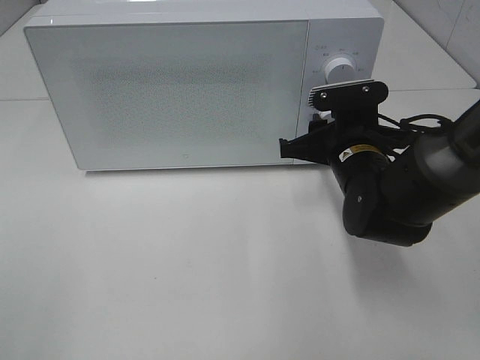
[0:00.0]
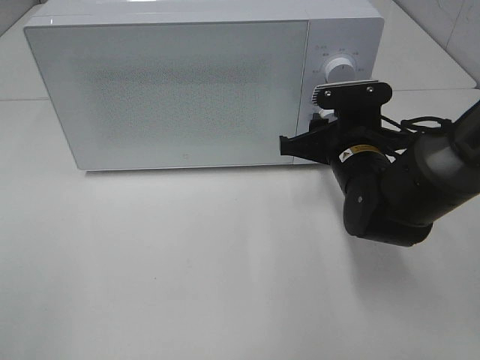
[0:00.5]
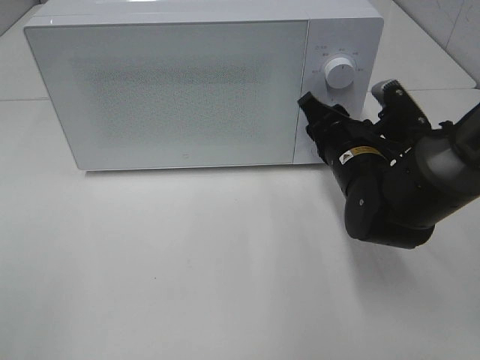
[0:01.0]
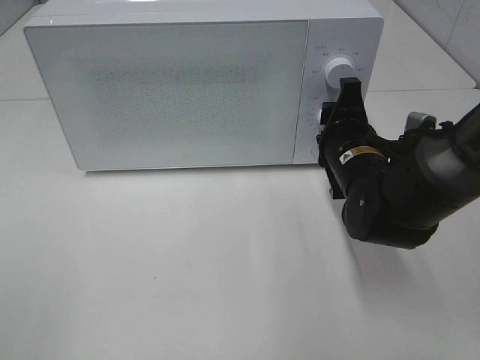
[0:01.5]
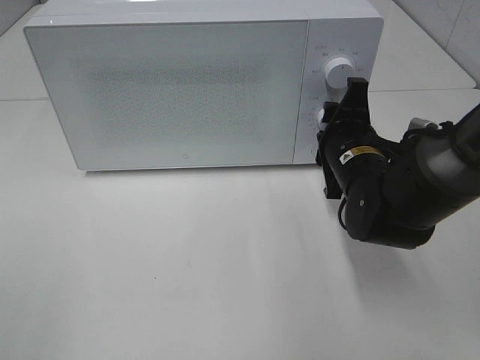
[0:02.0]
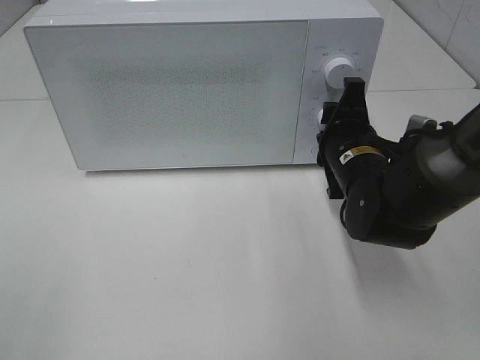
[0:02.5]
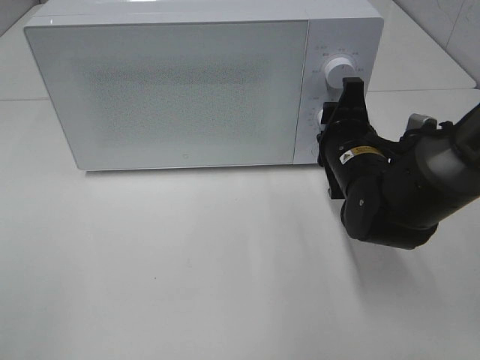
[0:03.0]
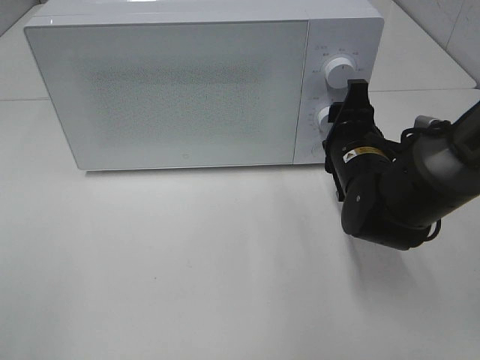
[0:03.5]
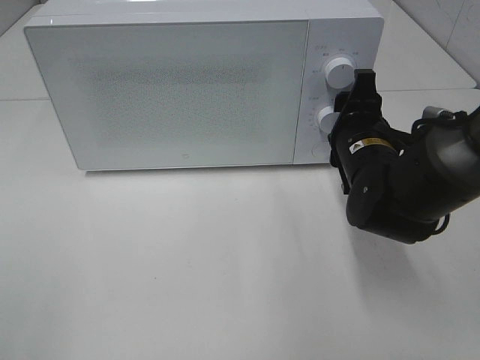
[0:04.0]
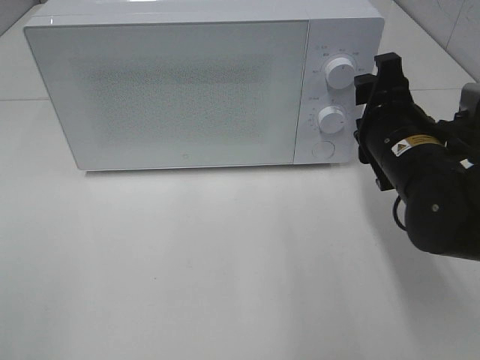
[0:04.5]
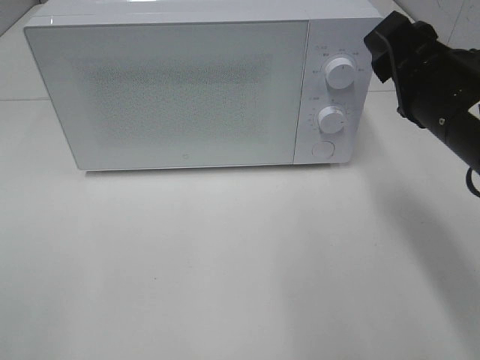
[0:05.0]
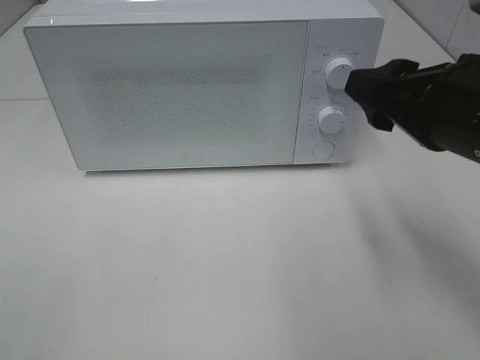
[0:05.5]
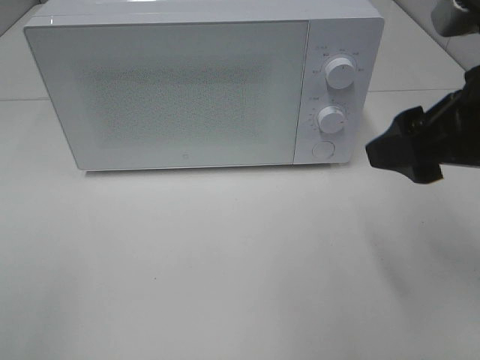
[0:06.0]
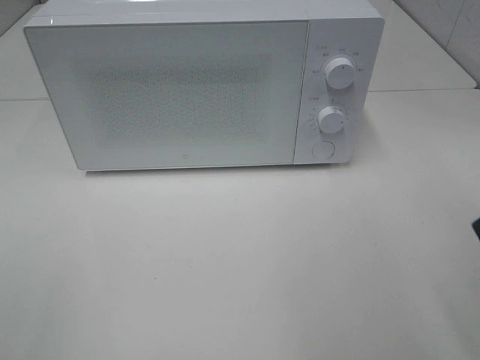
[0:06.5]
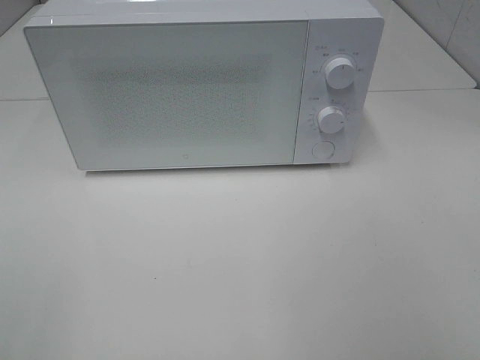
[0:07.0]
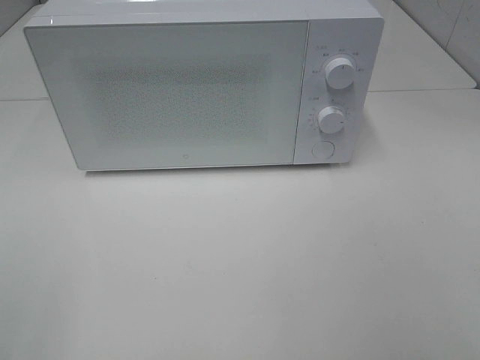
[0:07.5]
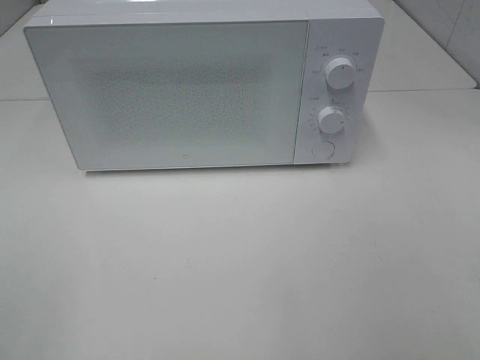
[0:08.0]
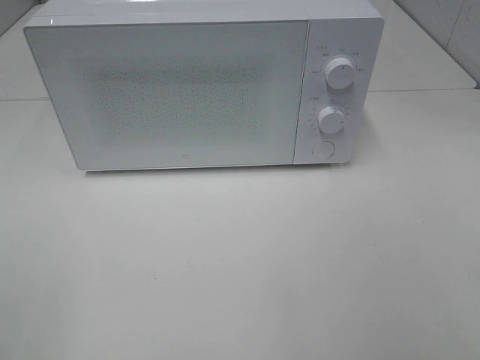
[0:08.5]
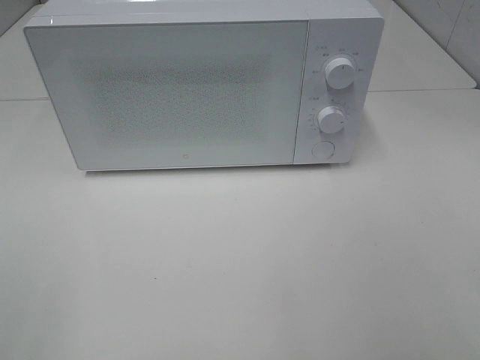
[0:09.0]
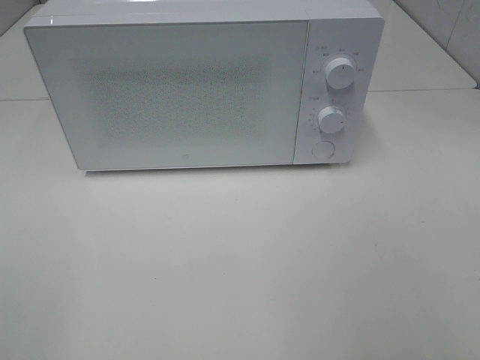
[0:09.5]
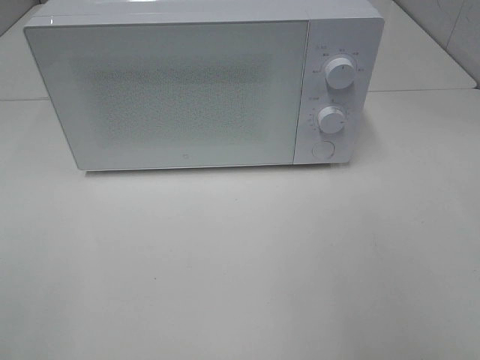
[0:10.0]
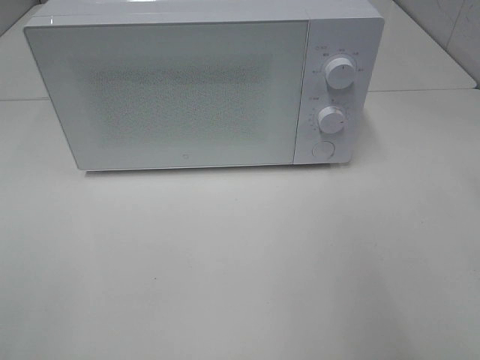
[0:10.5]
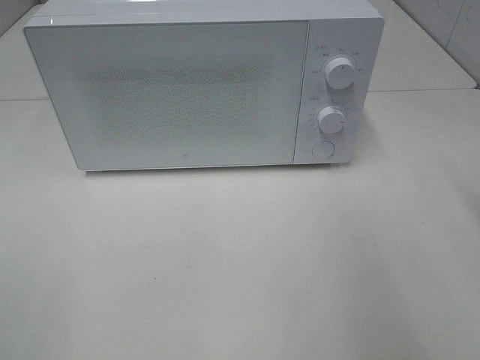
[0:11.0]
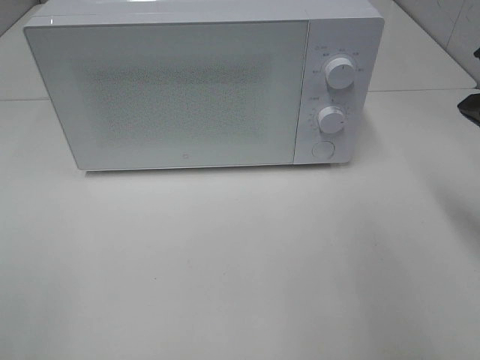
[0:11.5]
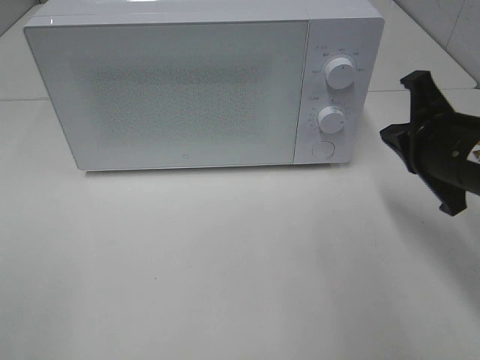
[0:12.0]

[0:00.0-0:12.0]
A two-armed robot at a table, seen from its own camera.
Task of the whole recording: Heat the burger.
Step, 0:00.0 to 0:03.5: Right hand: twist timer button.
0:02.0 to 0:04.0: The grippers make only small movements.
0:04.0 to 0:06.0: The right gripper is displaced upward and backward by roughly 20 cm.
0:06.0 to 0:08.0: The right gripper heads backward and to the right, covering roughly 20 cm.
0:10.0 to 0:12.0: The right gripper is displaced forward, downward and to the left by roughly 25 cm, and closes.

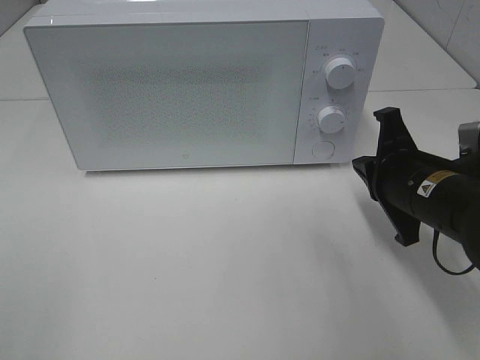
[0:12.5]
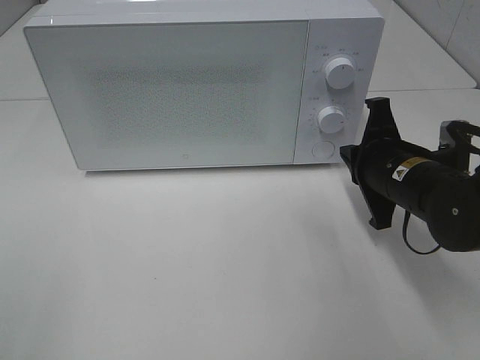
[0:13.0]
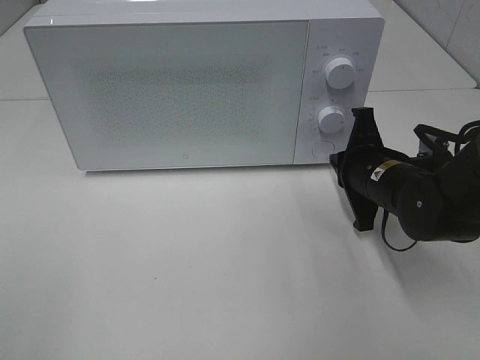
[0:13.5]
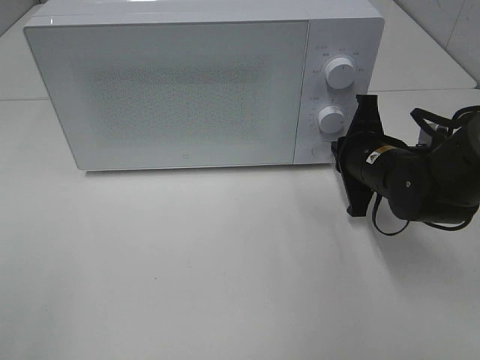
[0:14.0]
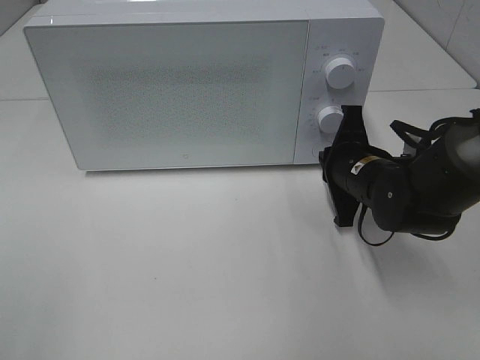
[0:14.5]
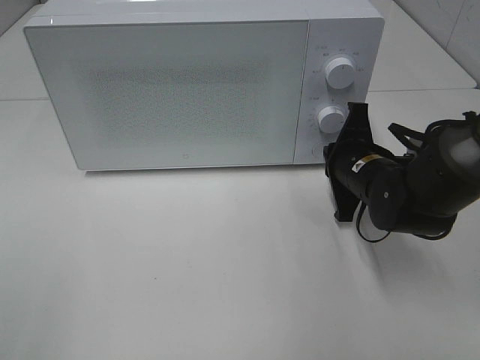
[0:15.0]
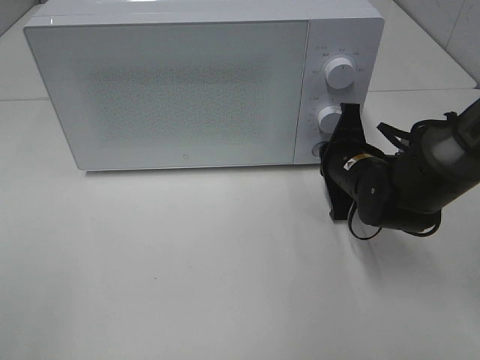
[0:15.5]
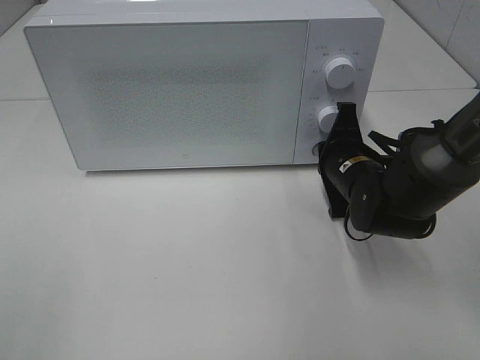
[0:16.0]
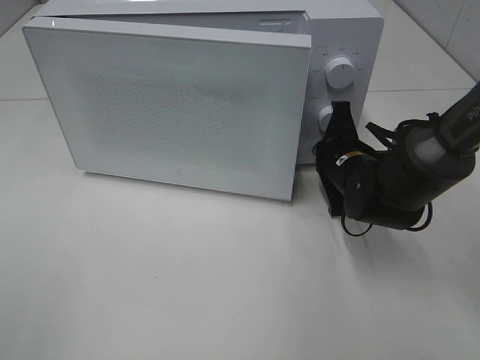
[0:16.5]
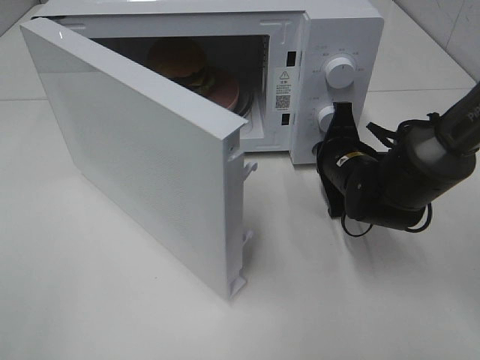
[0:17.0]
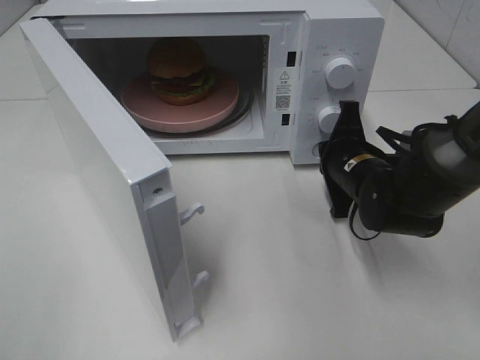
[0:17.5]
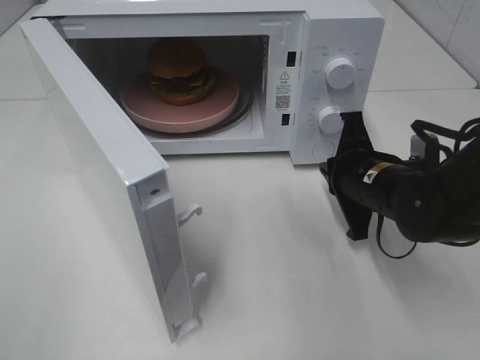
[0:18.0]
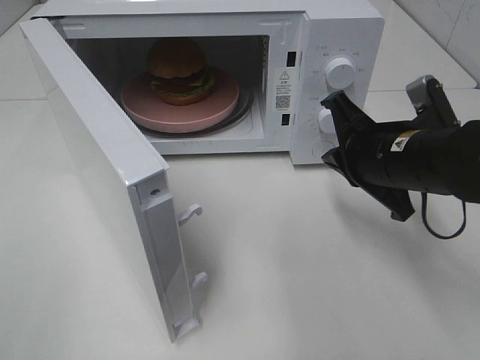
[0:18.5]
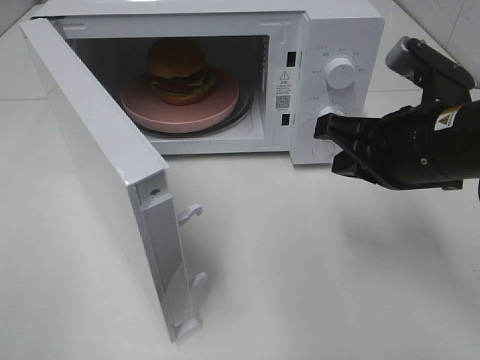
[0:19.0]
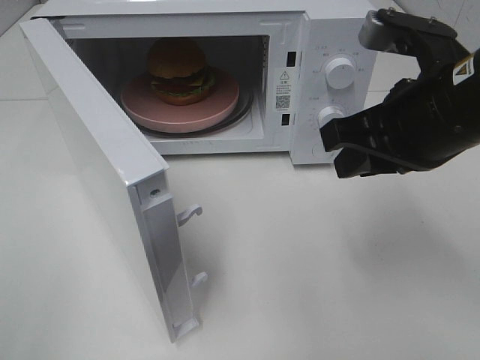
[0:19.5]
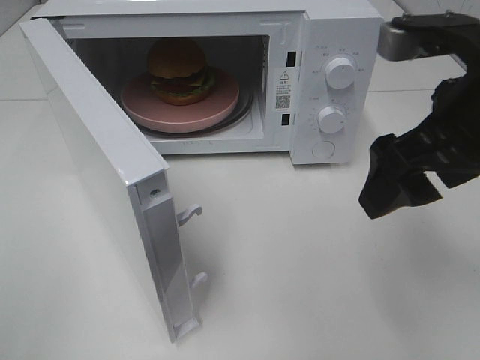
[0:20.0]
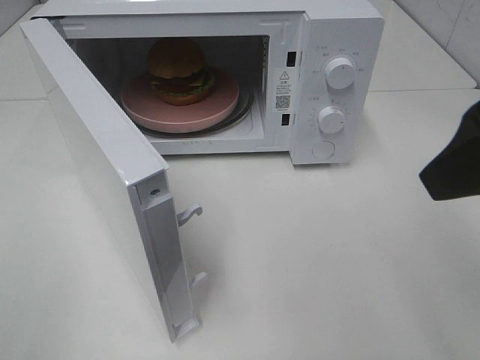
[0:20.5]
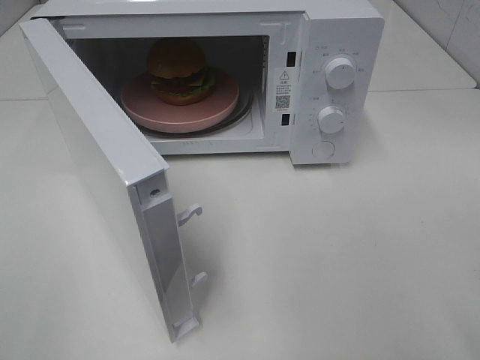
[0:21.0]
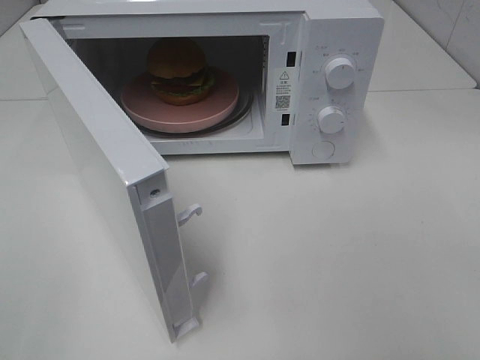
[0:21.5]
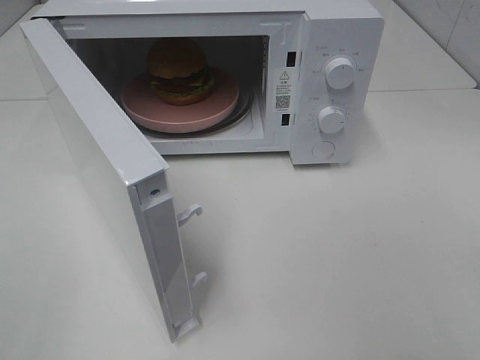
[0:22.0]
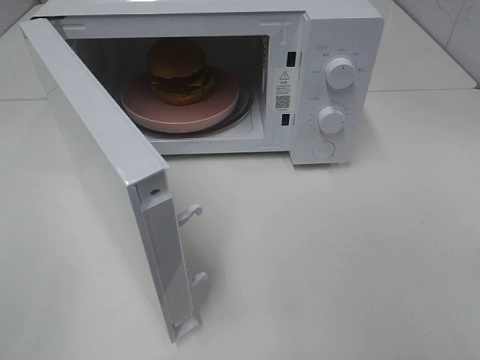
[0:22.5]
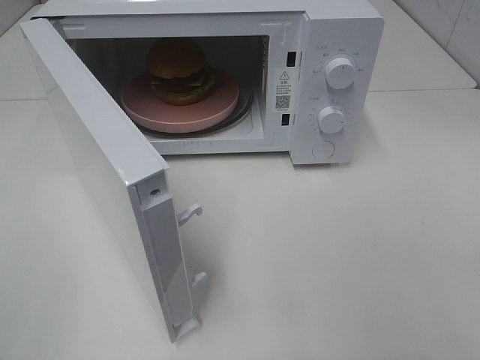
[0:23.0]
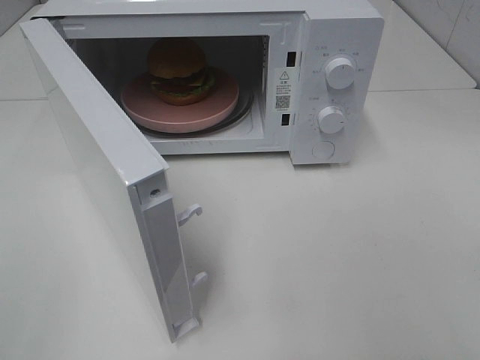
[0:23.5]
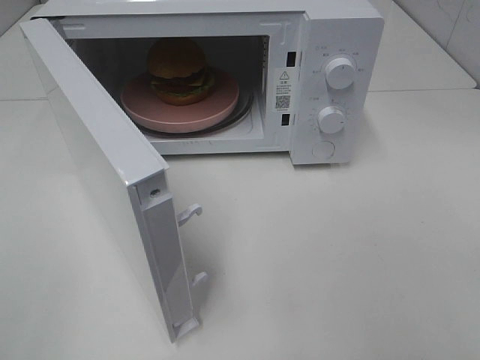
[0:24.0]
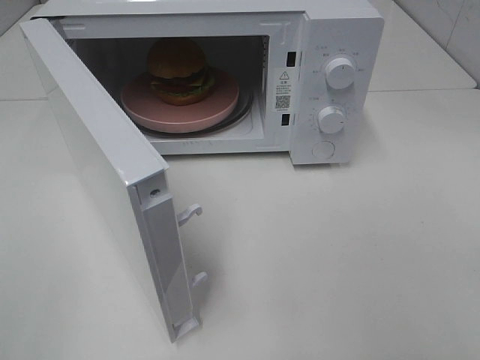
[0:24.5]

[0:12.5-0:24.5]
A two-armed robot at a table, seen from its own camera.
Task of the whole recording: Heat the burger.
Step, 0:12.5 to 0:17.5: Right hand: press the switch.
0:12.5 to 0:14.5: The right gripper travels forward by roughly 5 cm.
0:14.5 to 0:16.5: There are only small adjustments of the grippers.
0:16.5 to 0:18.5: The right gripper is displaced upward and backward by roughly 10 cm.
0:18.5 to 0:20.5: The right gripper travels upward and backward by about 20 cm, and opens up.
0:20.5 to 0:22.5: The right gripper moves backward and to the right, some 15 cm.
0:22.5 to 0:24.5: Both grippers stay put.

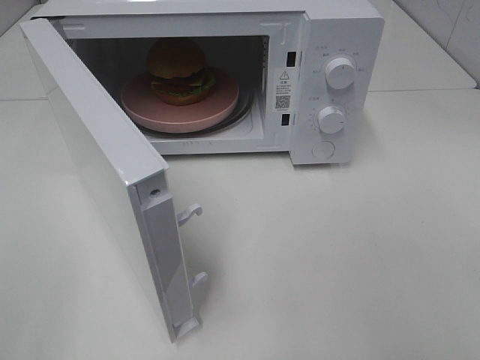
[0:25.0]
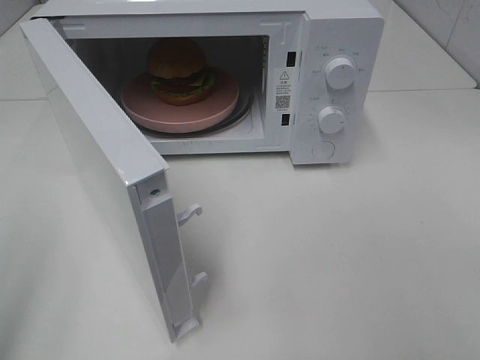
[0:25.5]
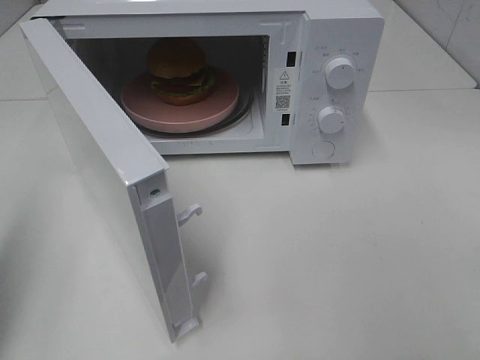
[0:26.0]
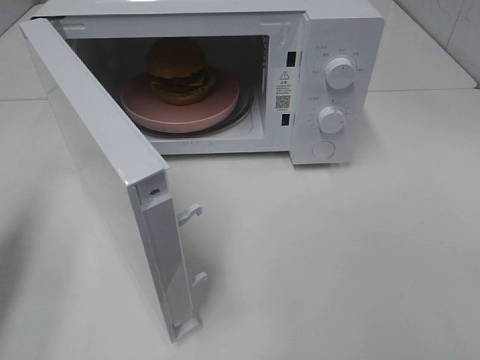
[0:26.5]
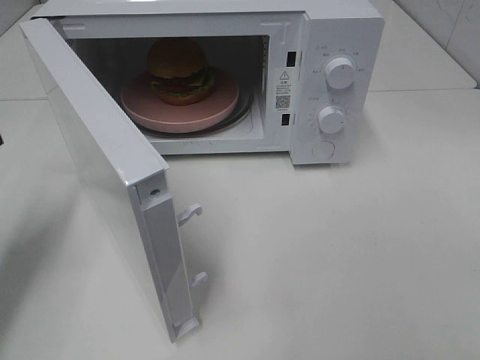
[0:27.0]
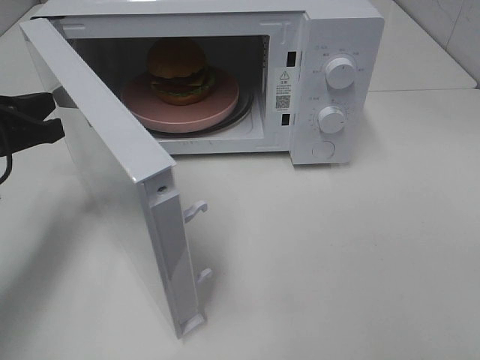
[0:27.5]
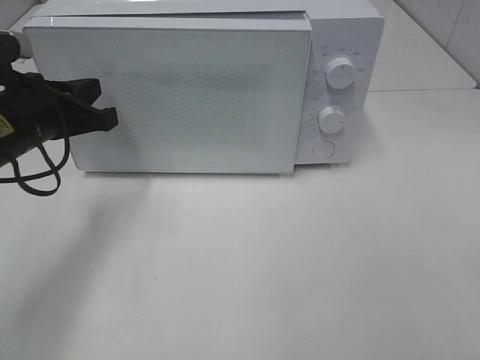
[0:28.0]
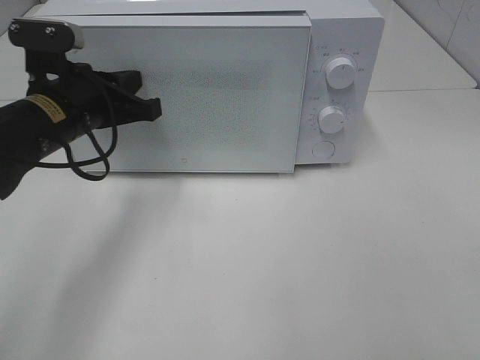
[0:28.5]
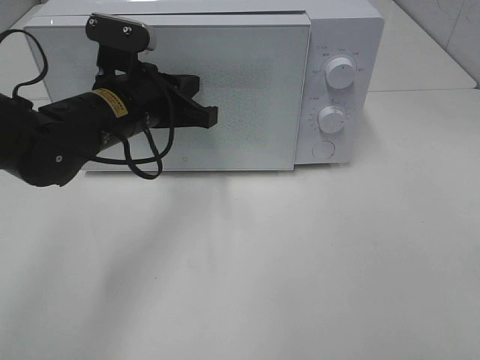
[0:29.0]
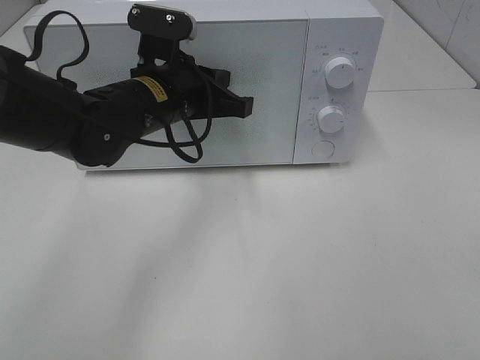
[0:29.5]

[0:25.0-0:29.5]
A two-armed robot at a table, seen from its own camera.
Task of the whole recording: Heat the burger.
0:25.0 to 0:27.0: The left gripper moves forward and downward, some 25 cm, and closes.
0:27.0 to 0:29.5: The left gripper moves to the right and forward, about 25 cm.
